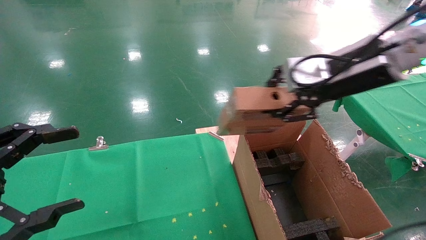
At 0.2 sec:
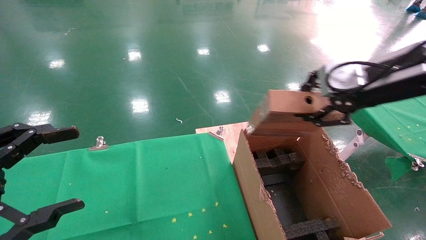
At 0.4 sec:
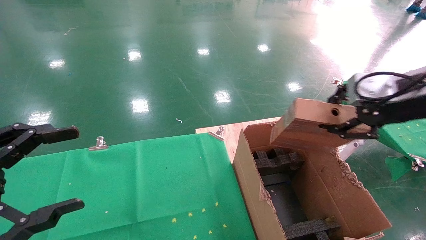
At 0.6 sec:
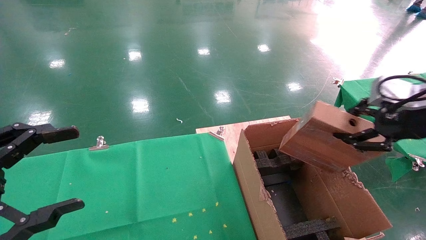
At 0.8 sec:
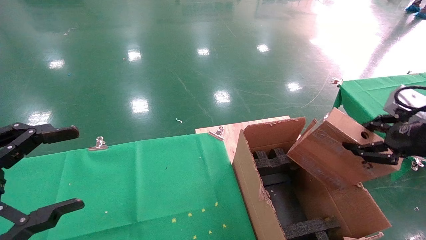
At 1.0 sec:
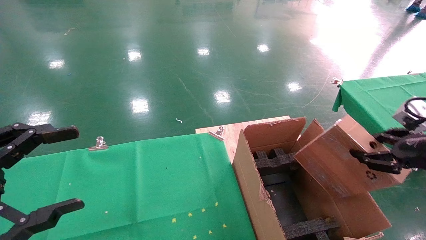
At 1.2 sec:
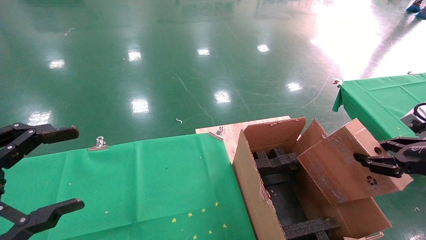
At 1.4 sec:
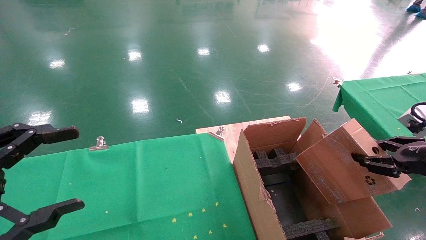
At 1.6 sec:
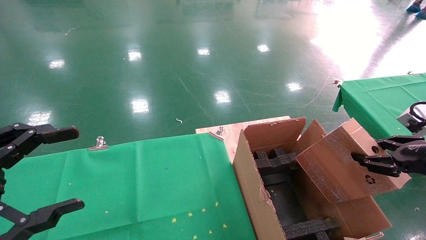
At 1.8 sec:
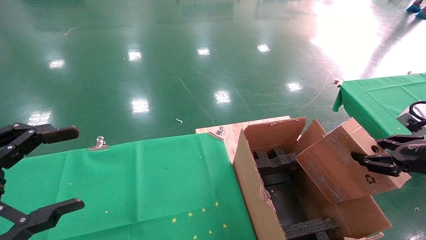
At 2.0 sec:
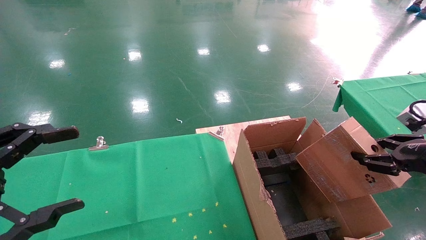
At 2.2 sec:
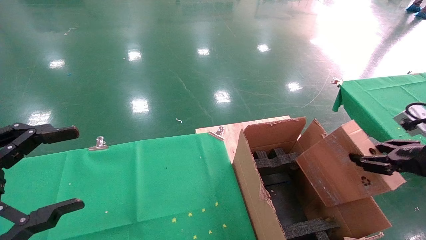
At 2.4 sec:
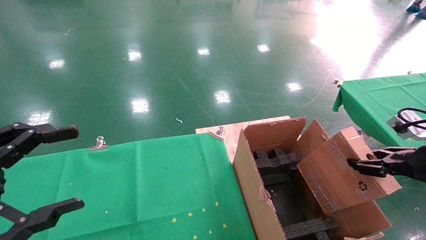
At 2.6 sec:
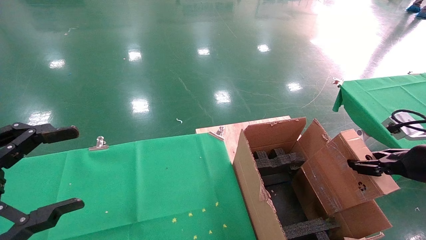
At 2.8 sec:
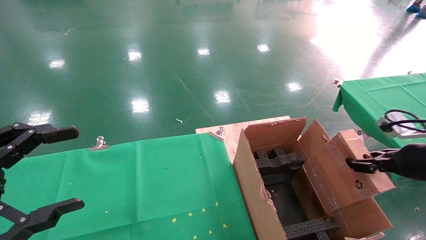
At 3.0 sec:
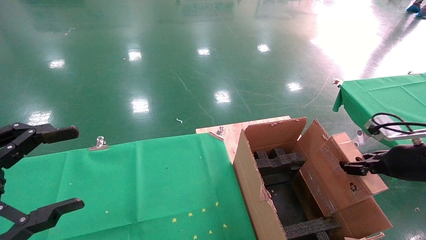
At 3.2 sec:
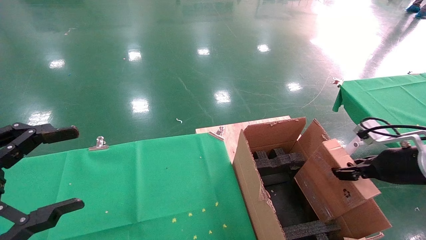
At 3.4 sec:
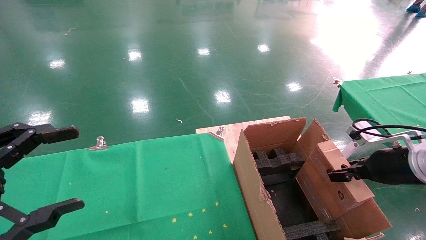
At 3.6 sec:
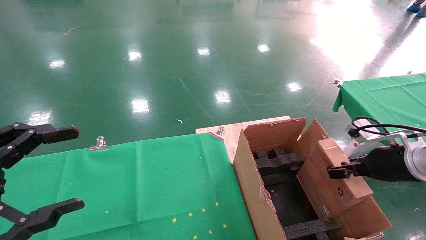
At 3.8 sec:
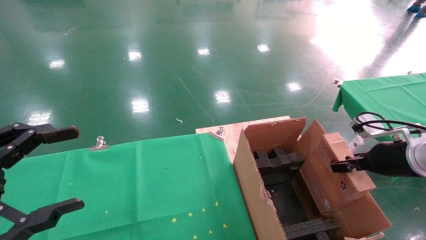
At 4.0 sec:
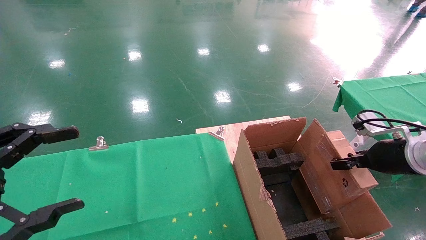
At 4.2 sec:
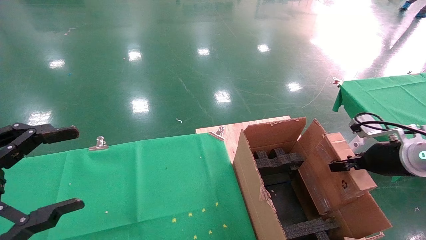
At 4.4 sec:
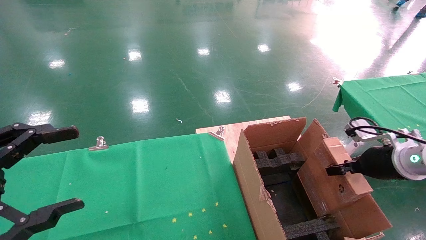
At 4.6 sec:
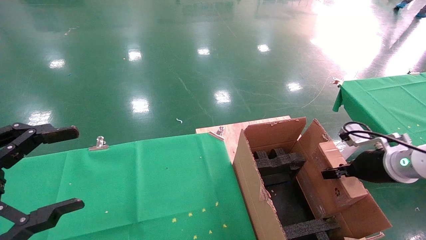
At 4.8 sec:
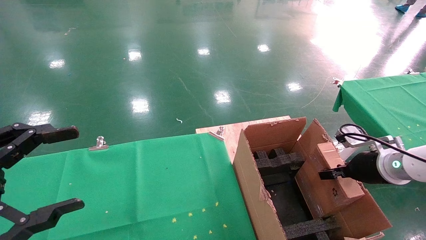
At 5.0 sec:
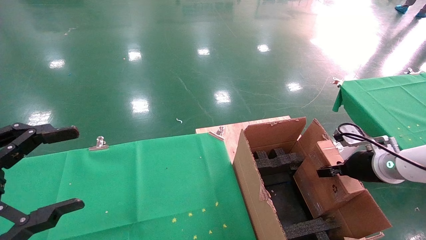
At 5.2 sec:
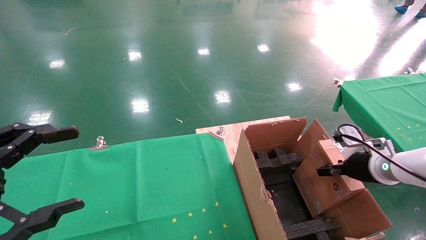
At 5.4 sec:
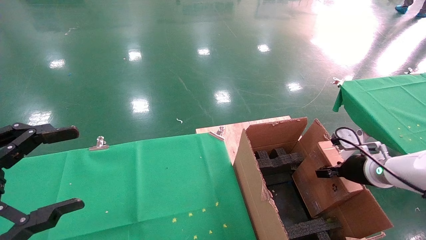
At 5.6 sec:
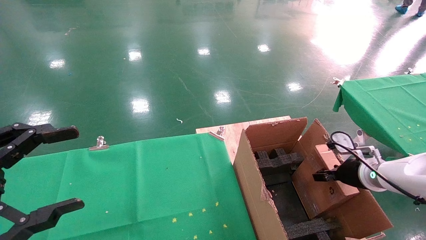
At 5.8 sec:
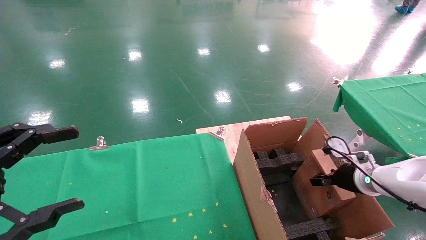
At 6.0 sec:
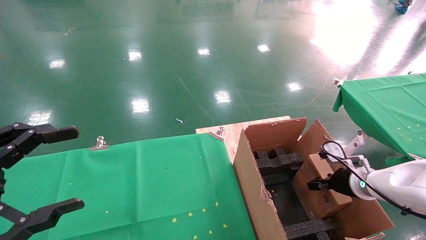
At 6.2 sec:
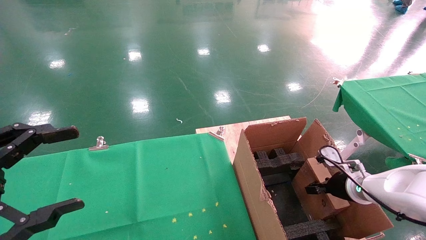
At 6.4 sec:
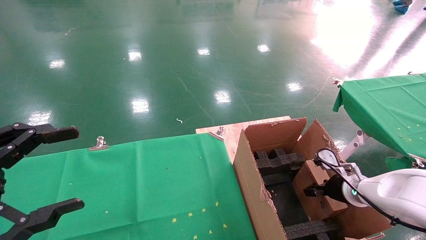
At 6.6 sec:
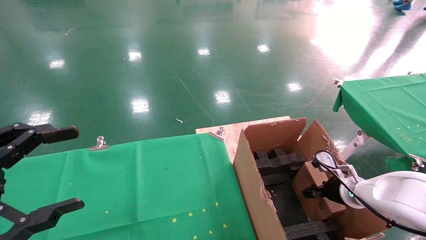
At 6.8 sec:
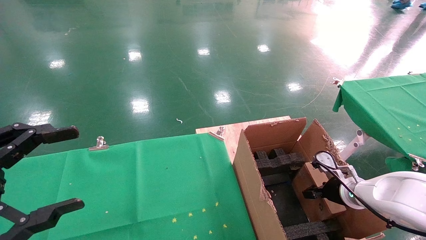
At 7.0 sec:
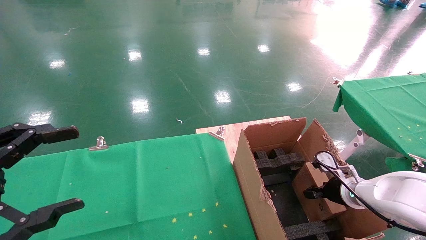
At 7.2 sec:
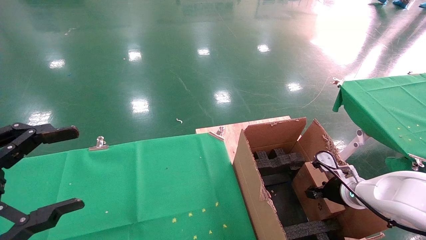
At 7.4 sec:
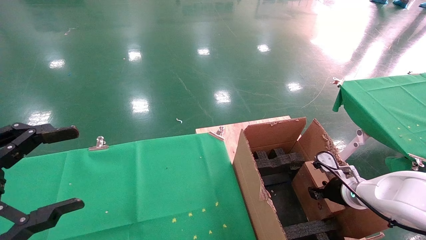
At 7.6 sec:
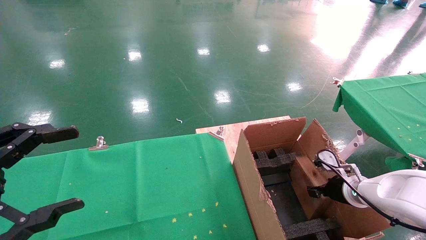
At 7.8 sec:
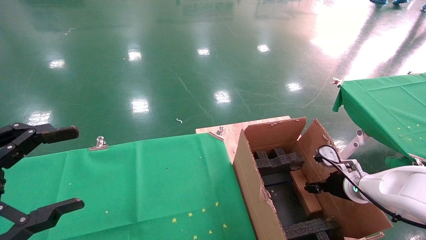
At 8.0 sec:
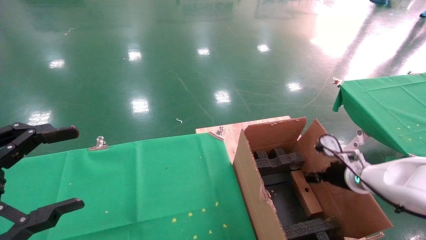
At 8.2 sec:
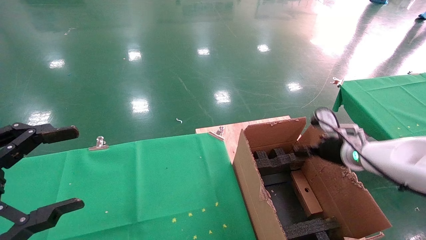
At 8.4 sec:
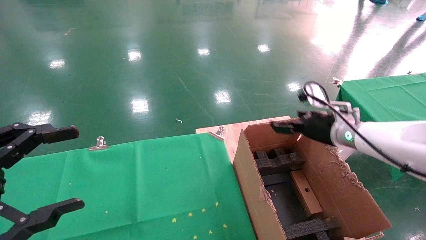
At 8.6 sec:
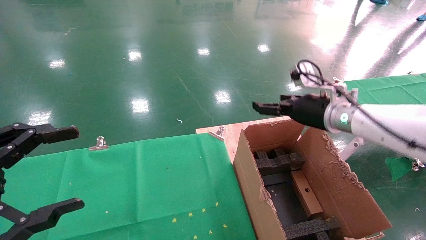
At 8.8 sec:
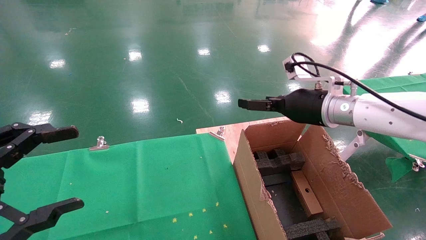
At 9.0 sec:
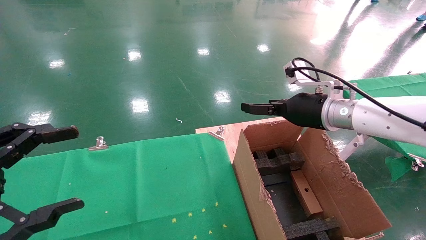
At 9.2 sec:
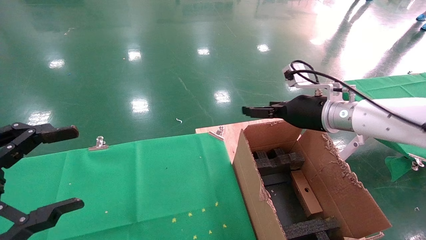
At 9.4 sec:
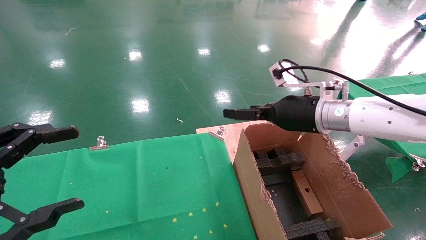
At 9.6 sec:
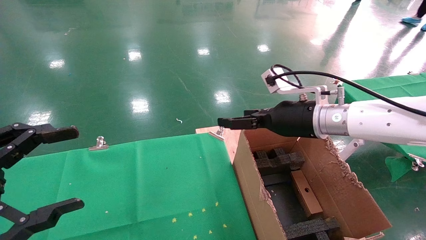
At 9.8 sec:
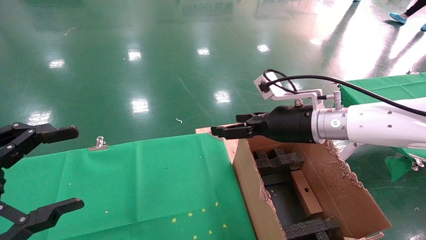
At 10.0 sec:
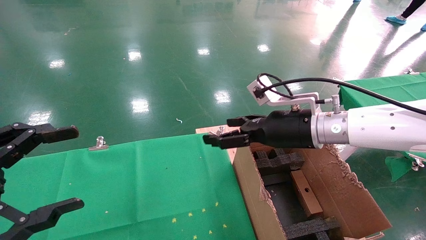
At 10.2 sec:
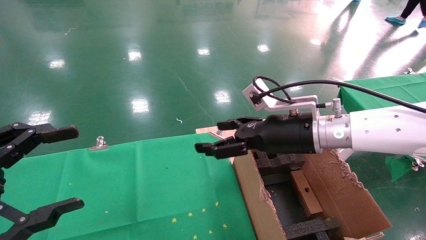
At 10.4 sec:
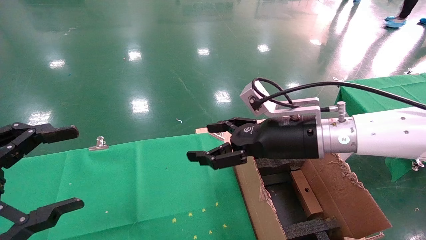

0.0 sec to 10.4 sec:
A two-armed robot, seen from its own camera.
Task of the whole recording: using a robotic arm to pick up a cardboard box and palace it the carton.
Step, 0.0 sec to 7.8 sec: Place the mouse and the power cord paper box into the container.
0.0 sec to 1.4 sec: The right gripper travels to the right, downward and backward by some 25 cm.
1.4 sec to 3.0 sec: The right gripper is displaced forward by about 5 cm.
3.0 sec to 4.4 sec: The right gripper shifts by about 5 cm.
4.4 sec to 6.0 sec: The right gripper shifts roughly 10 cm downward.
6.0 sec to 7.4 sec: The grippers make only small movements.
7.4 sec to 9.0 sec: The right gripper travels upward and to the left by approximately 25 cm, and opens its fingers.
9.0 sec to 10.4 sec: The right gripper heads to the left and backward, covering about 10 cm.
